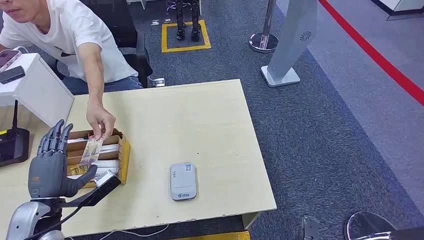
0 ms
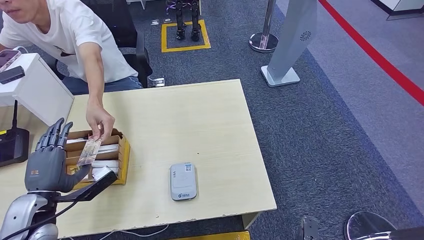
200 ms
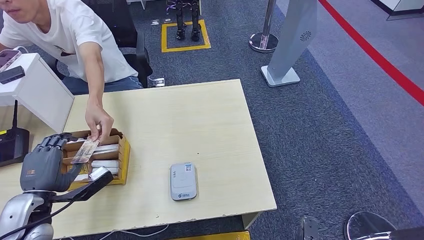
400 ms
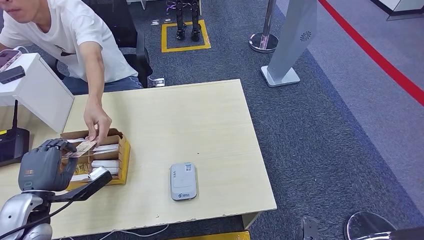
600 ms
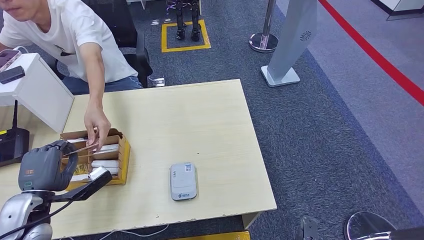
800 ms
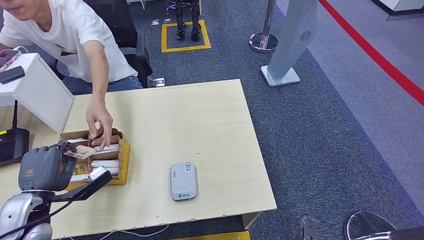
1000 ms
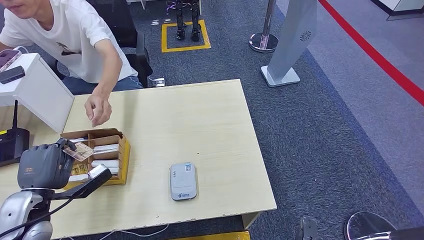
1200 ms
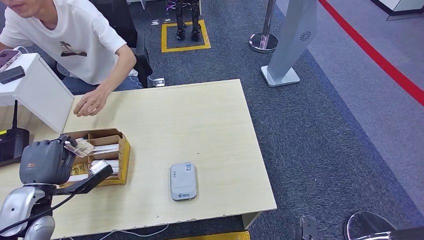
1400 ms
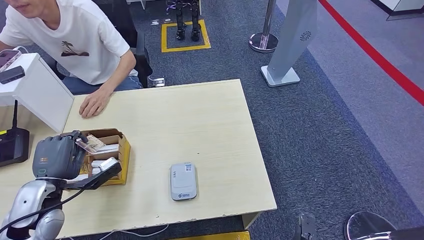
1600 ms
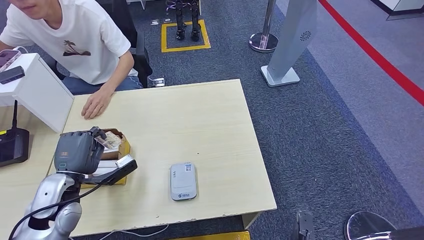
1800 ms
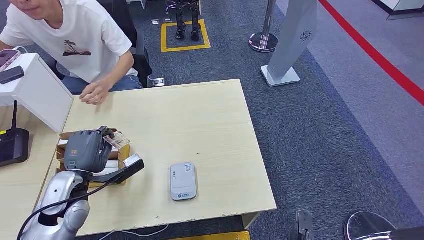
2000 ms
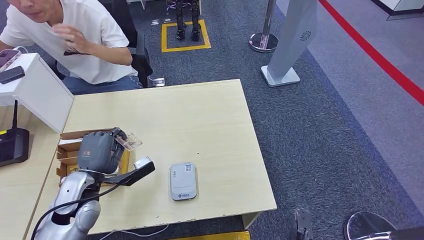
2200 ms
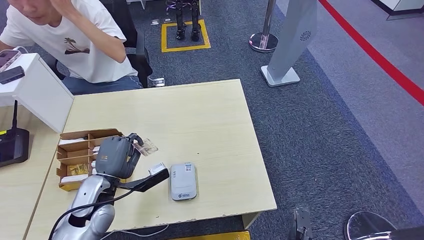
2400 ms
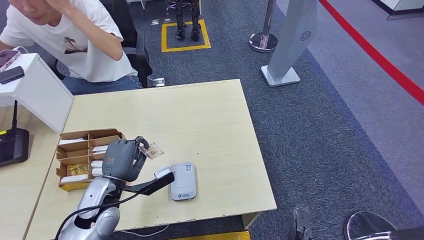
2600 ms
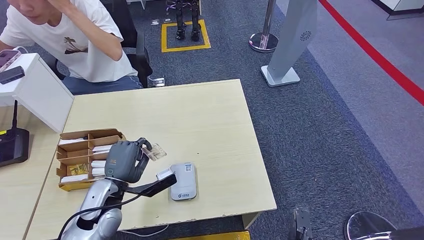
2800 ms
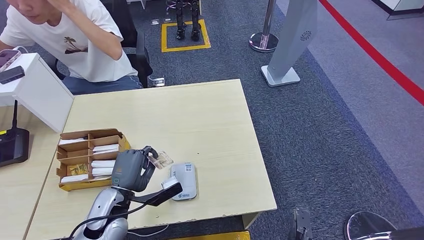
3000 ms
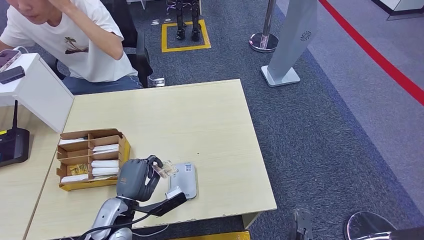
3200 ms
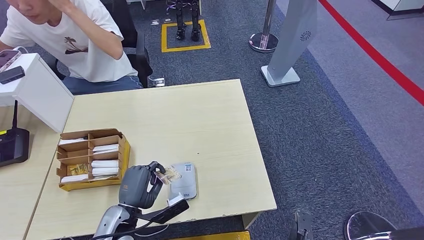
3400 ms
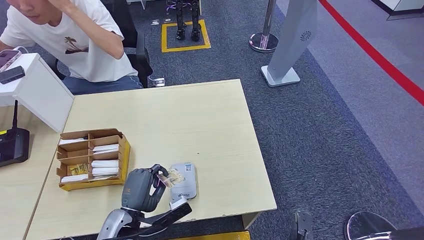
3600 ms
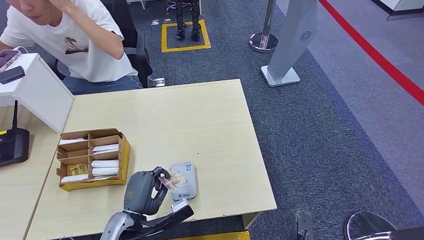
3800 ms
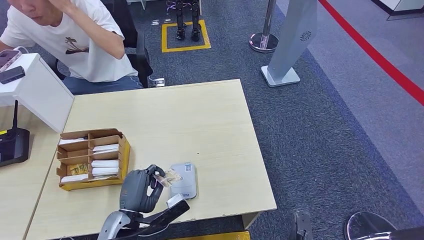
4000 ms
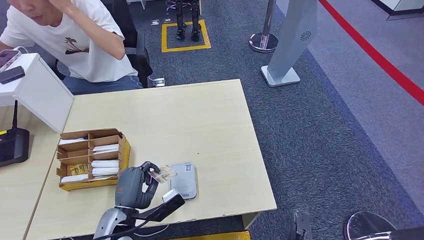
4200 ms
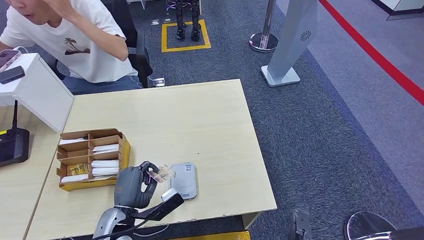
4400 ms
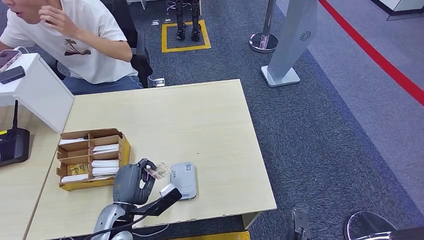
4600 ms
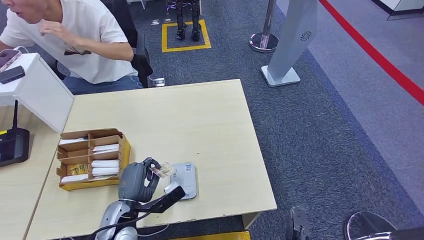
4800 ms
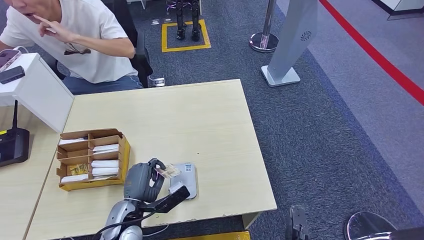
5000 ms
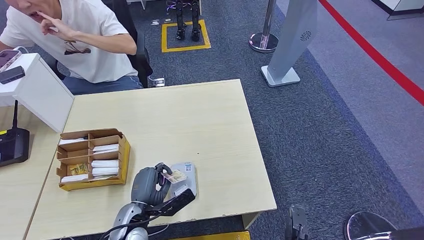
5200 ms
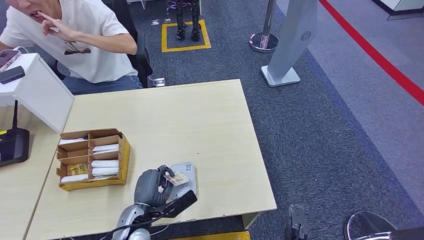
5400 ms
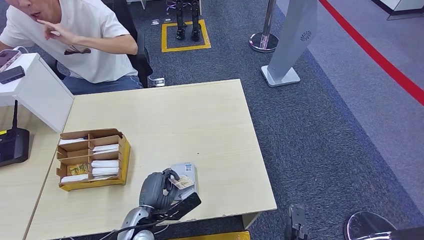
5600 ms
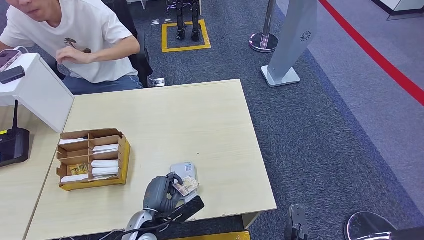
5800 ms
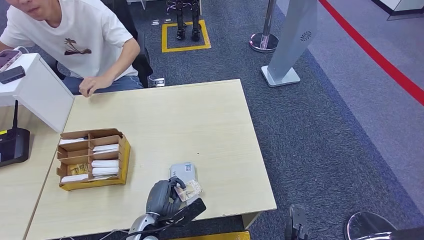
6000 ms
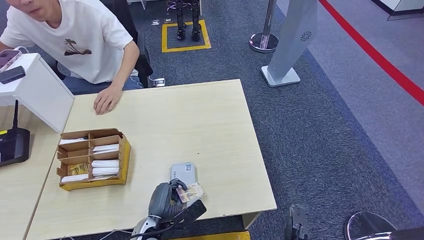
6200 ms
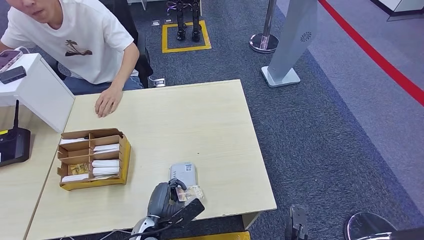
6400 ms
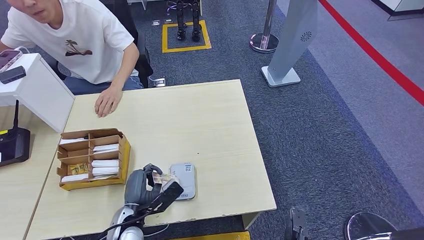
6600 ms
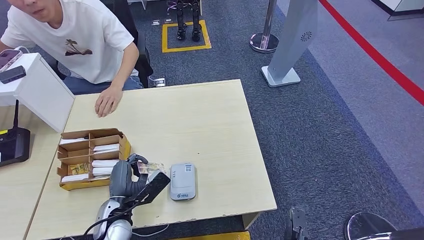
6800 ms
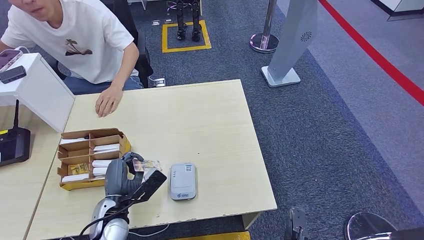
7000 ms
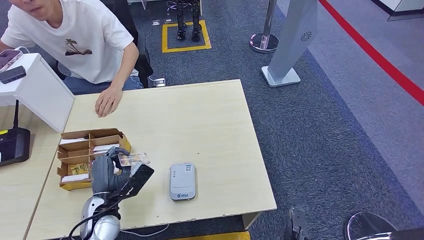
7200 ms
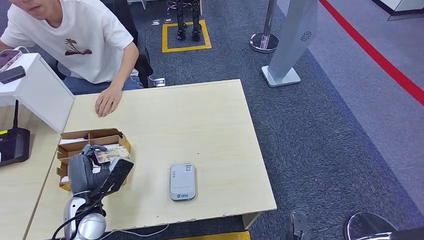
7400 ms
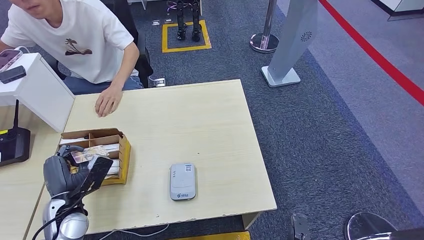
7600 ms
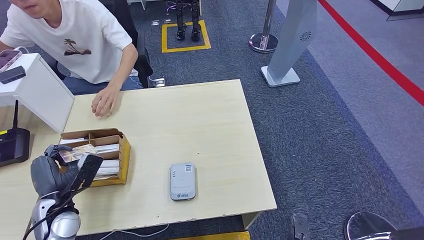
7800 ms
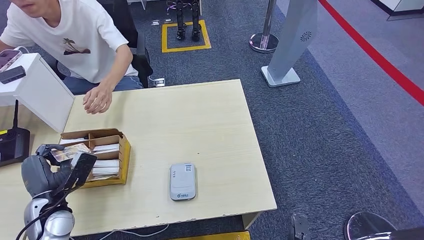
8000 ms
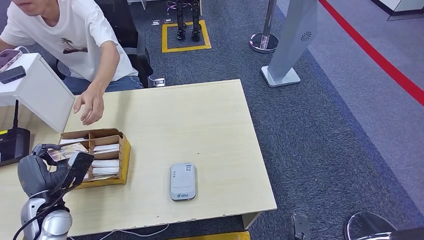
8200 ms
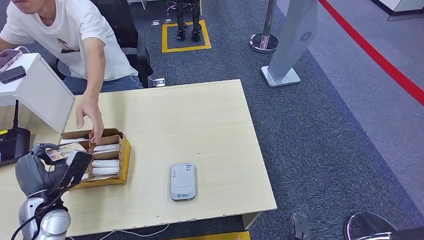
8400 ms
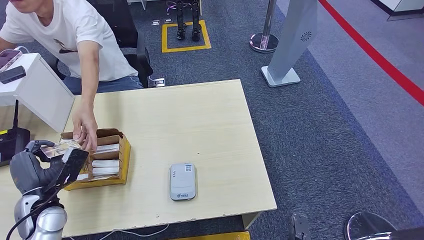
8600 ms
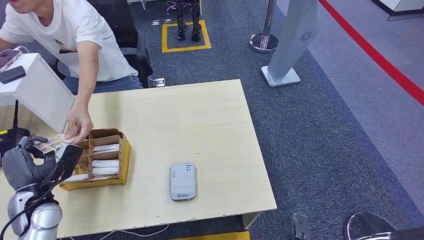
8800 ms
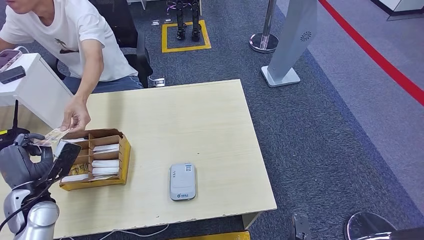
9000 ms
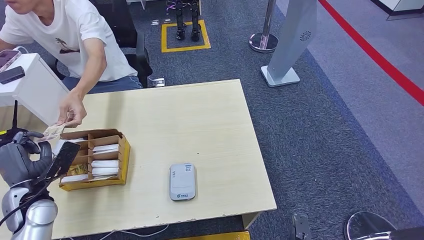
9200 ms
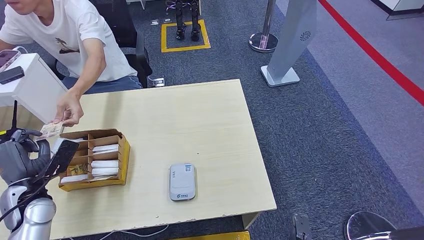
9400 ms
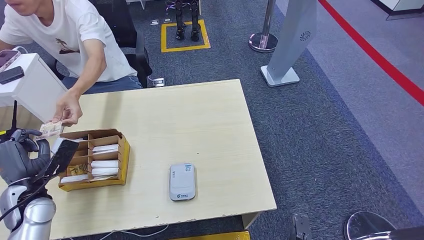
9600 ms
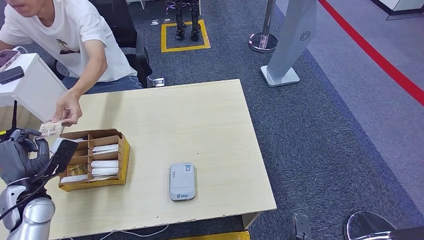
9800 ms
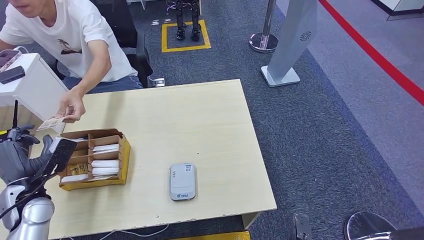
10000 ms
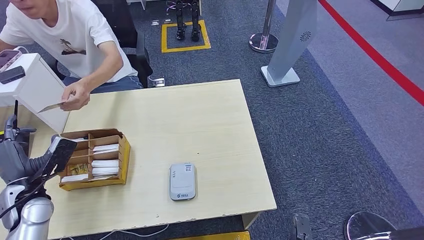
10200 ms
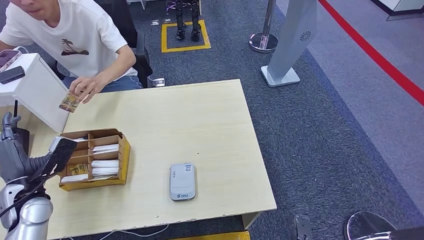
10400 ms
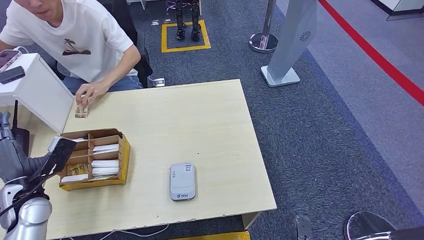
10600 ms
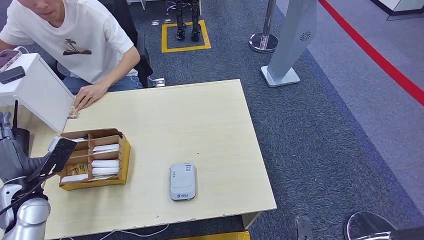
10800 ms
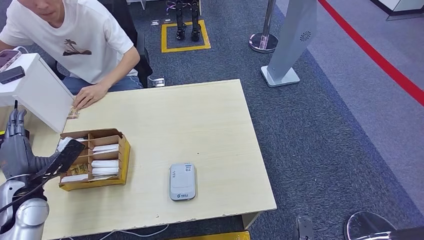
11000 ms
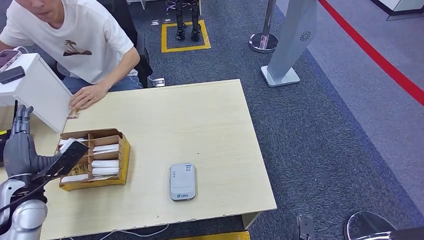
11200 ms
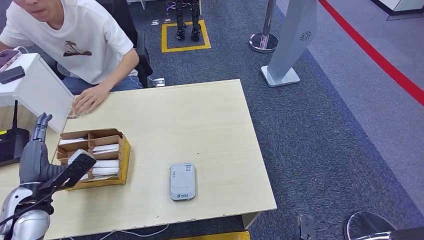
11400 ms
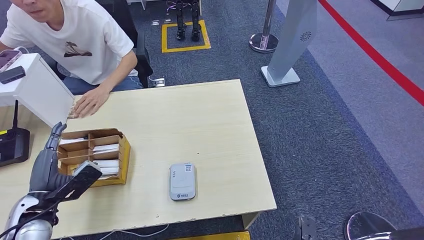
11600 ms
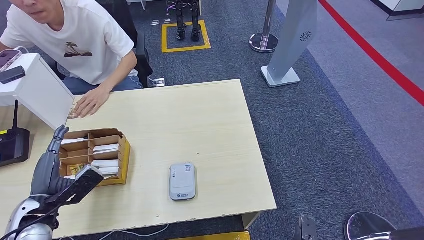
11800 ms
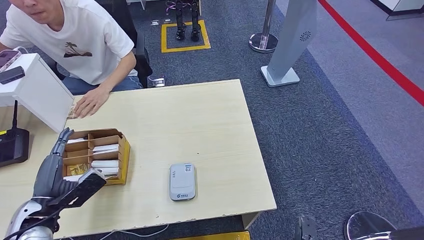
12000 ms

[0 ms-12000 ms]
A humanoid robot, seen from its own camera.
Step, 0 ms to 1600 ms: Take the ID card from the person's hand.
Step, 1800 ms to 7200 ms: Place the ID card on the card reader.
Step, 7600 ms to 10000 ms: Hand the ID card to the person.
1600 ms to 3000 ms: The left hand heads to the right and downward, covering about 15 cm.
4400 ms to 6000 ms: The left hand goes some 10 cm downward and to the right.
6000 ms to 7600 ms: The left hand shifts some 20 cm to the left and upward.
7600 ms to 9000 ms: The left hand shifts about 10 cm to the left.
9000 ms to 10400 ms: There are only small adjustments of the hands.
10400 ms to 12000 ms: The left hand moves backward, approximately 5 cm.

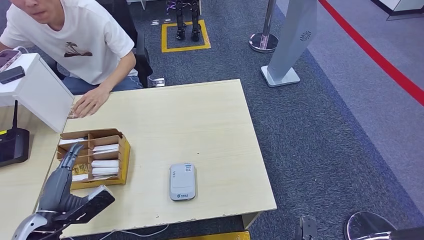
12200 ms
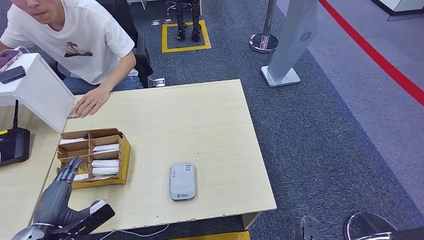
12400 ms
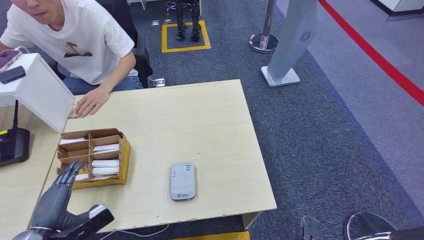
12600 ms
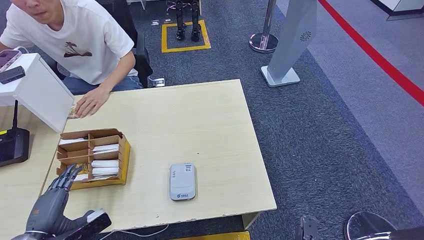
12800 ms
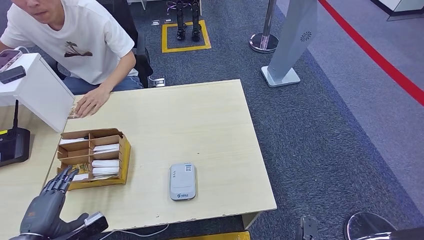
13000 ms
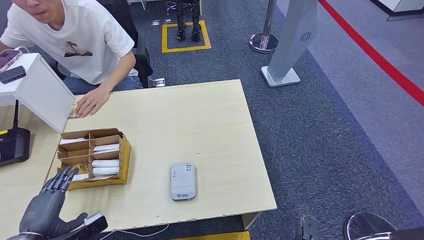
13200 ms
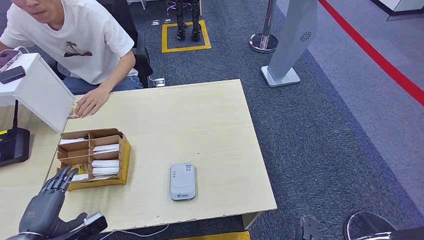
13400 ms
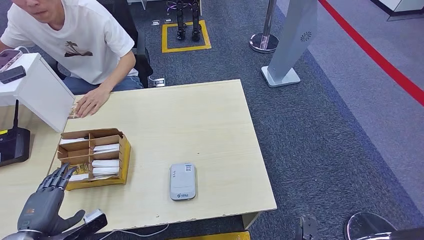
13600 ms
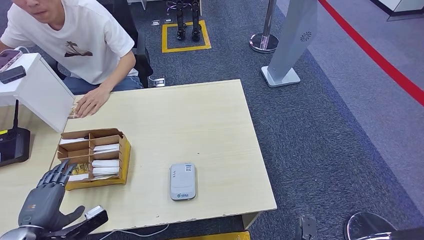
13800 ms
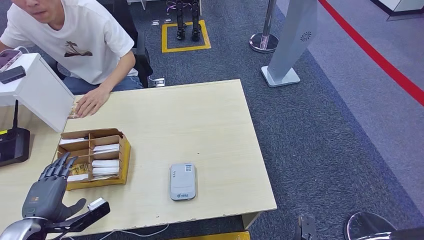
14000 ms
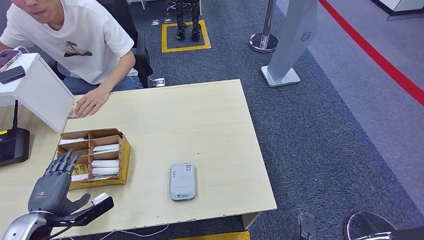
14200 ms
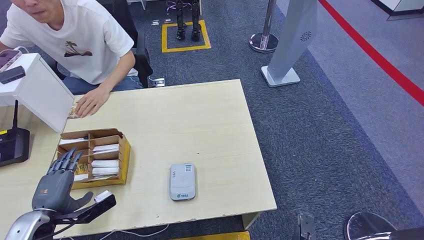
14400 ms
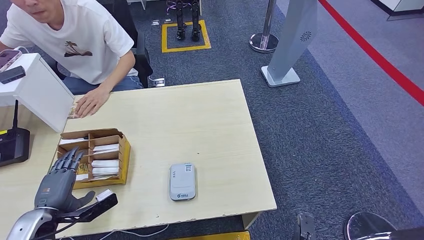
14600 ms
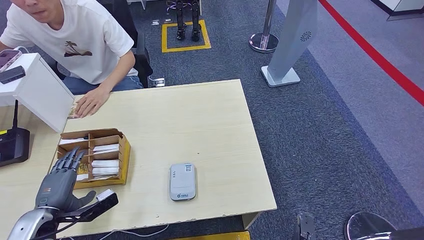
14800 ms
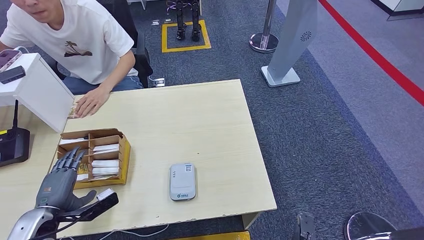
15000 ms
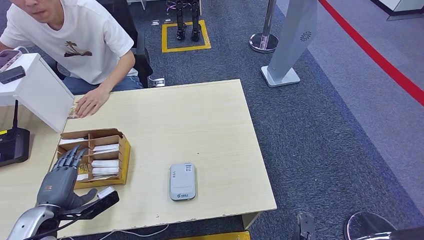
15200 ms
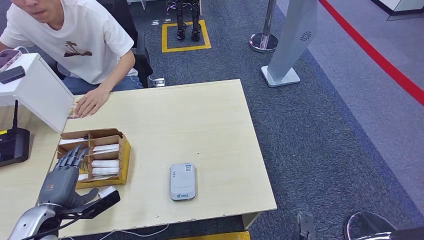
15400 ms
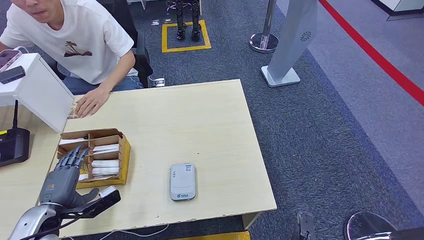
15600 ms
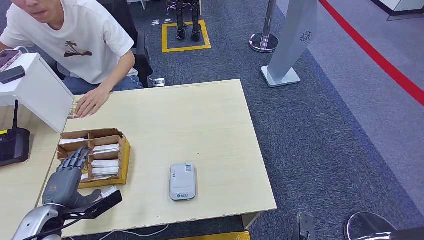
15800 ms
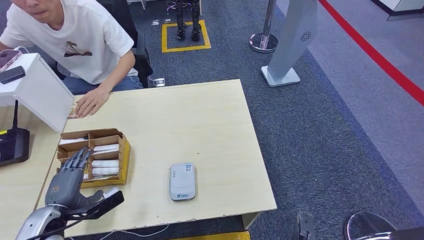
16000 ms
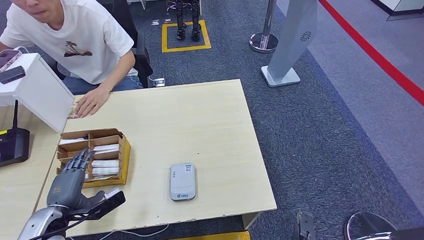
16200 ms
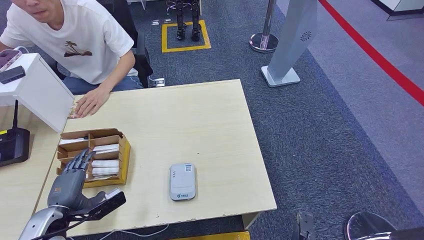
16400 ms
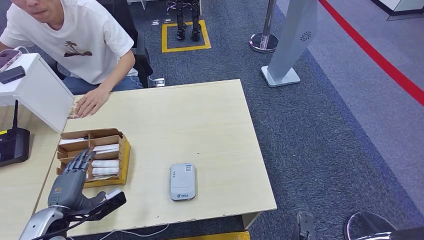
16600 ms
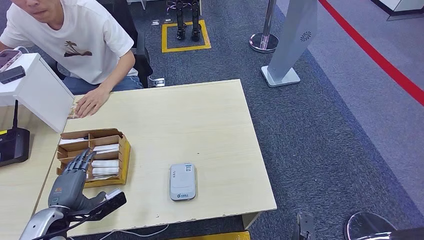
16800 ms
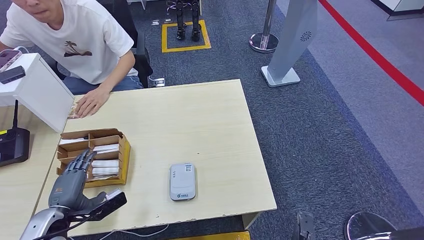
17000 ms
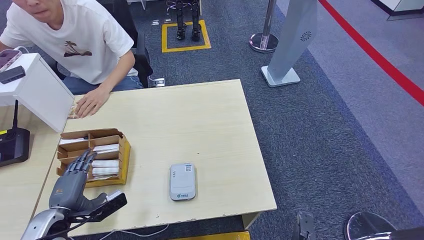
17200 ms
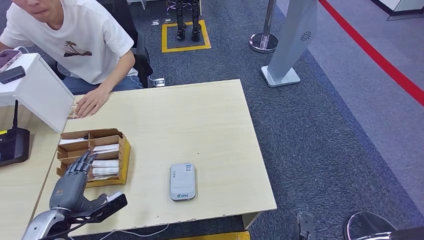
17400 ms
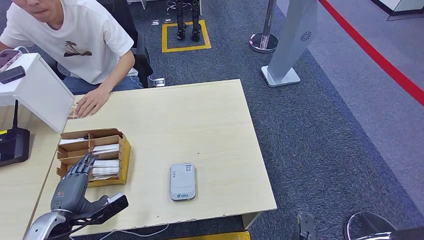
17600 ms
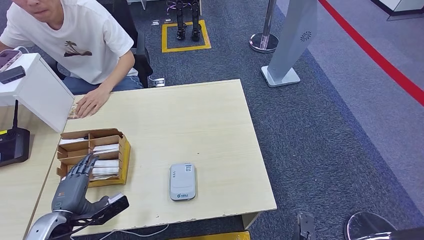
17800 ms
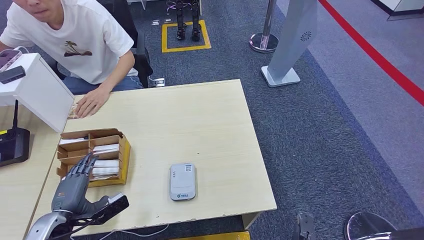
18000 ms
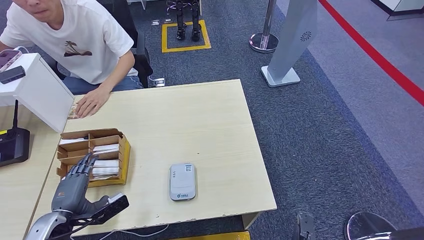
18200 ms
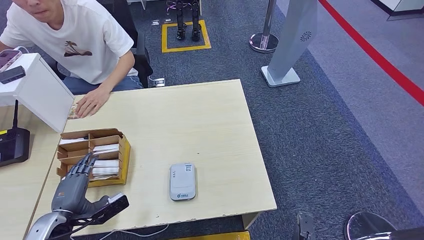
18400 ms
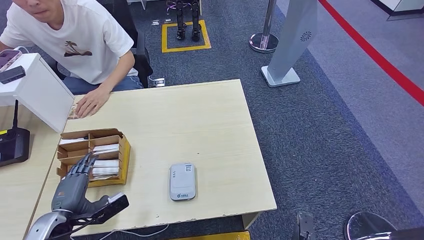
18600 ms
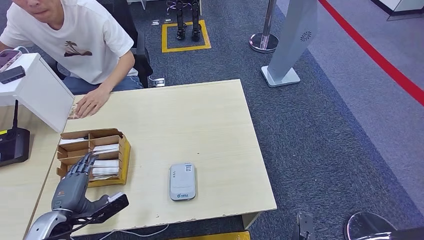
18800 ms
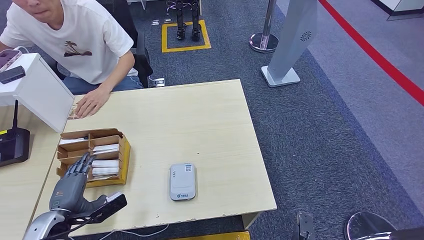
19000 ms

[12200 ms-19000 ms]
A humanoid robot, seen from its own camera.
12200 ms to 13600 ms: The left hand changes place by approximately 5 cm.
13600 ms to 15000 ms: The left hand moves forward, about 5 cm.
15000 ms to 16200 ms: The hands make only small movements.
16200 ms to 17600 ms: Neither hand changes place.
17600 ms to 19000 ms: Both hands stay about where they are.
